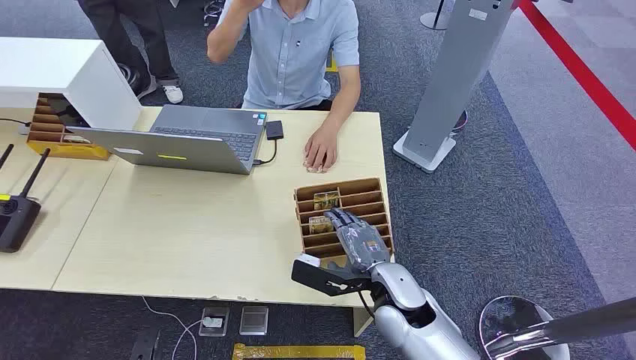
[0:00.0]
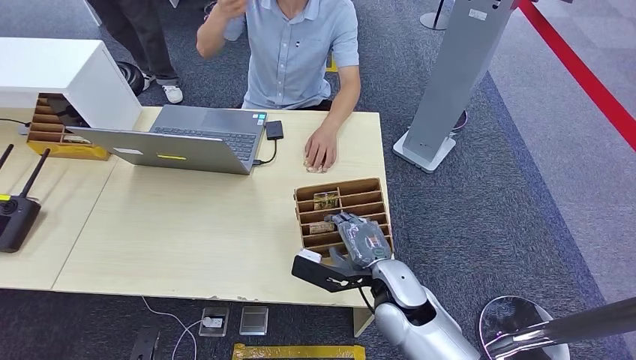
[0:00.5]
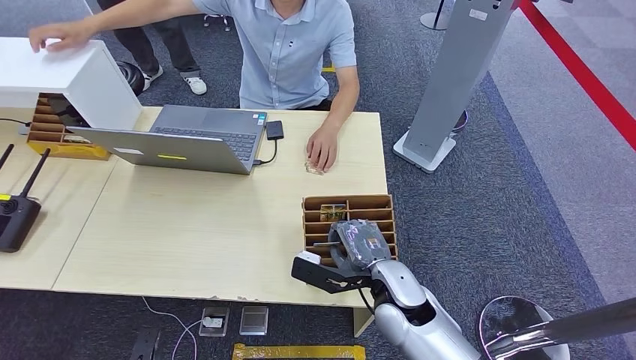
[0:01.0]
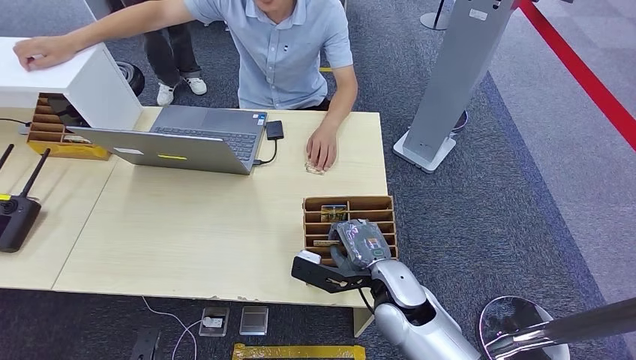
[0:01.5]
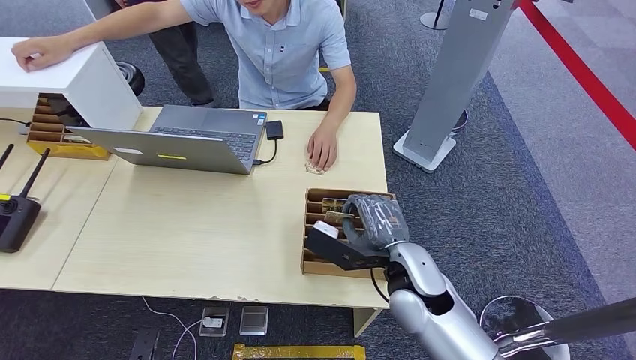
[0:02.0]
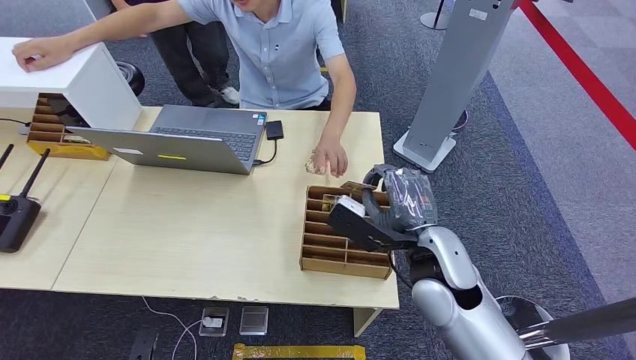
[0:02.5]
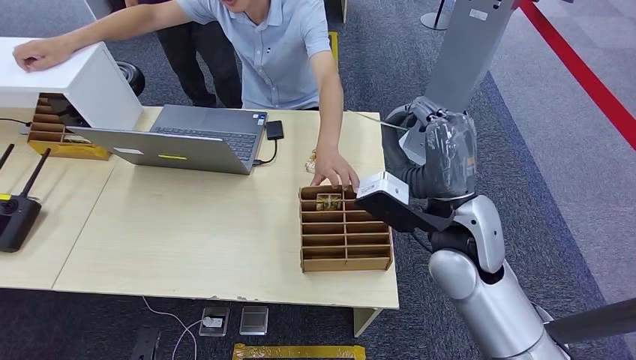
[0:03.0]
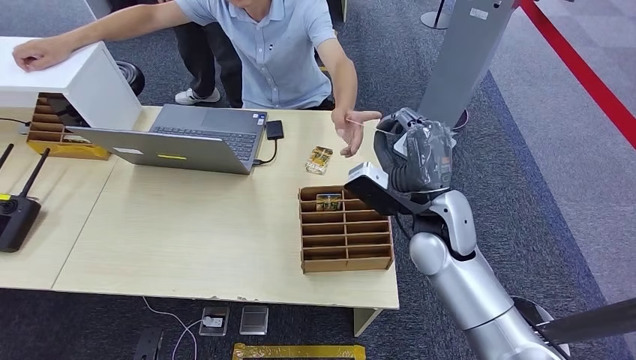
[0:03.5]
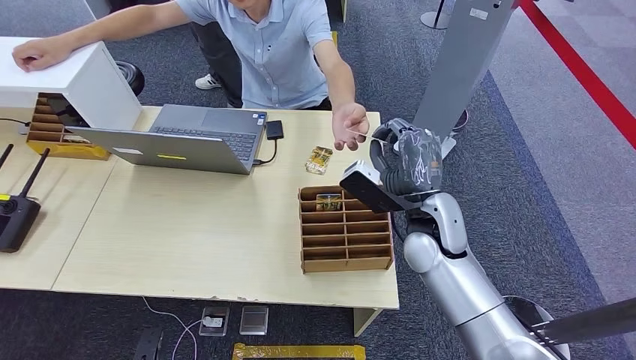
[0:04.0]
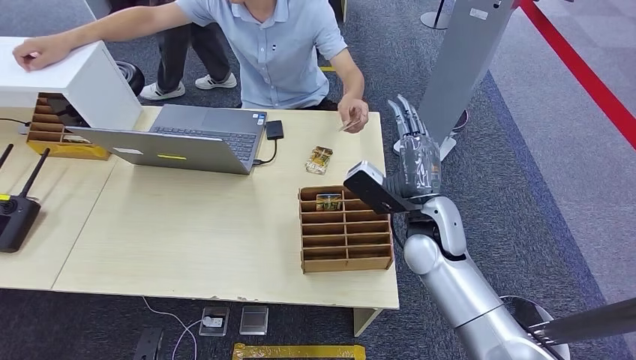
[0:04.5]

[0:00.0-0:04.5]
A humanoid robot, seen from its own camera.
Task of the whole recording: Pick up the card and hand it over to the target person.
Step, 0:00.0 to 0:02.0: Pick up the key card from the card box.
Step, 0:03.0 to 0:04.5: Hand the key card to the target.
0:02.0 to 0:04.5: The right hand is displaced forward by some 5 cm, and moves approximately 5 cm upward and comes back.
